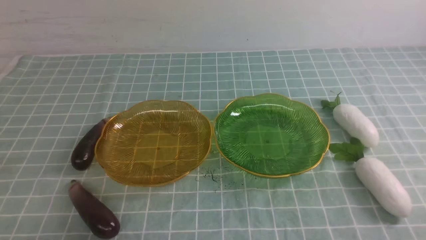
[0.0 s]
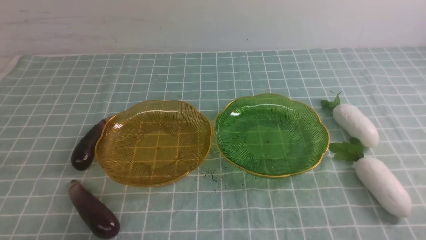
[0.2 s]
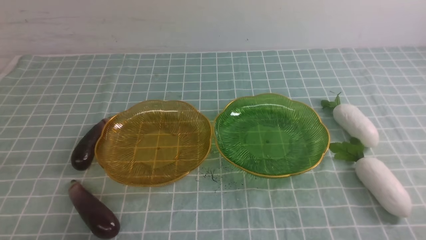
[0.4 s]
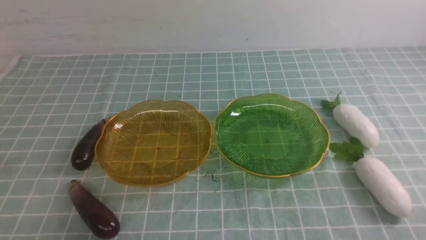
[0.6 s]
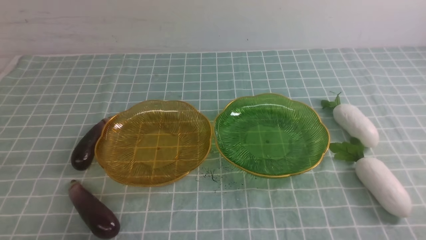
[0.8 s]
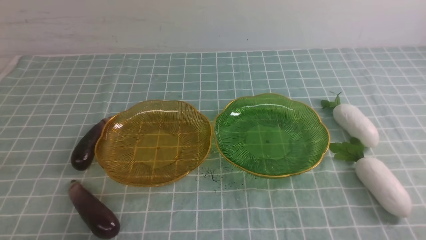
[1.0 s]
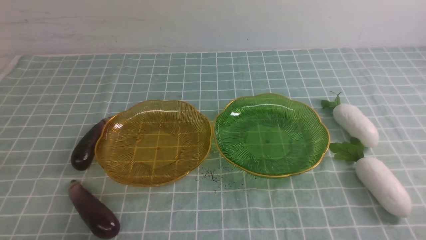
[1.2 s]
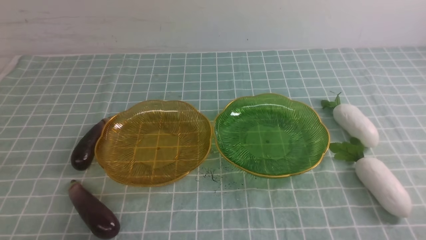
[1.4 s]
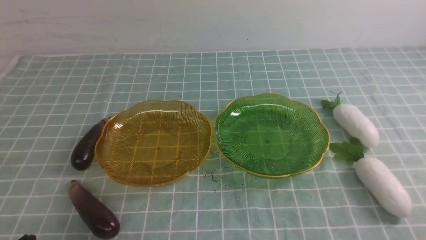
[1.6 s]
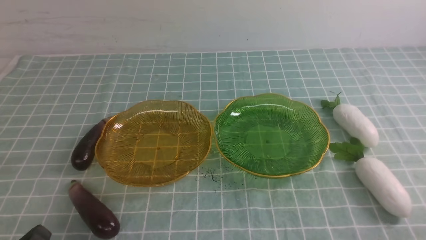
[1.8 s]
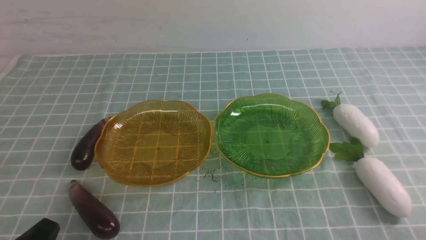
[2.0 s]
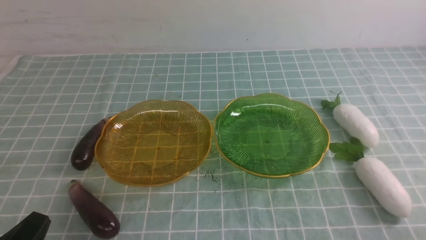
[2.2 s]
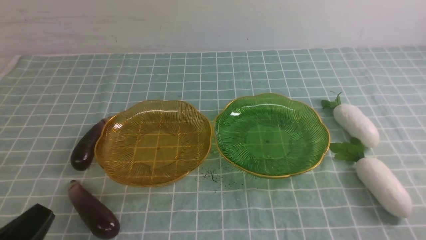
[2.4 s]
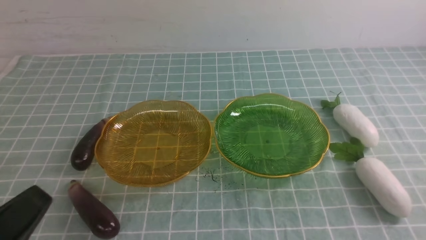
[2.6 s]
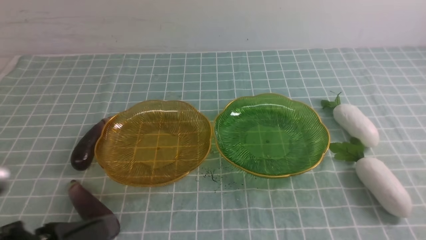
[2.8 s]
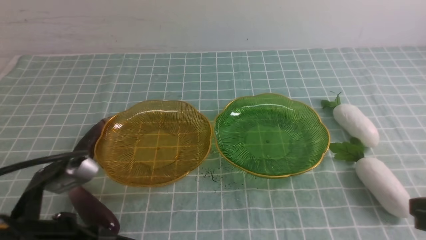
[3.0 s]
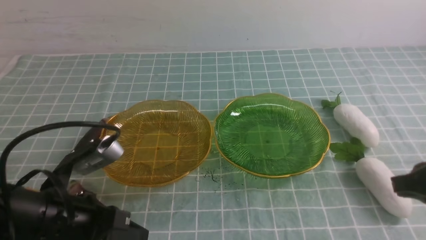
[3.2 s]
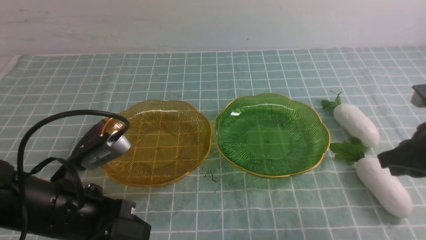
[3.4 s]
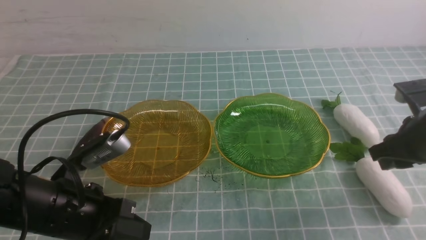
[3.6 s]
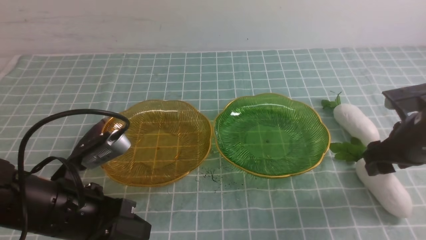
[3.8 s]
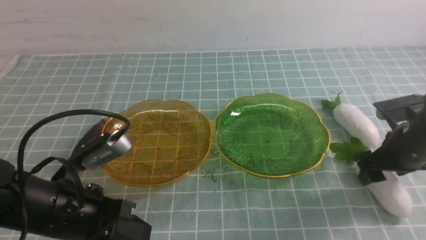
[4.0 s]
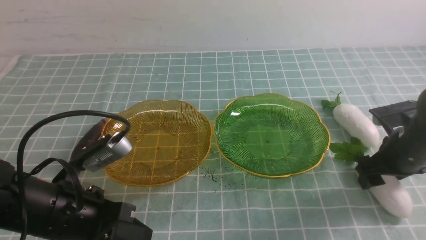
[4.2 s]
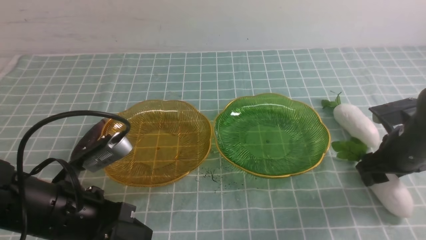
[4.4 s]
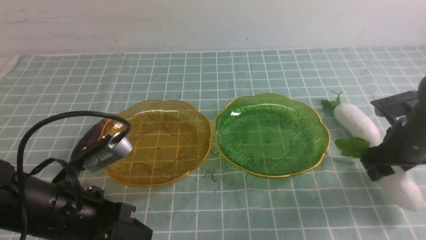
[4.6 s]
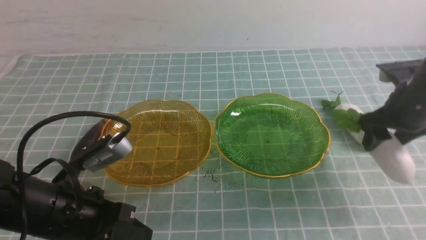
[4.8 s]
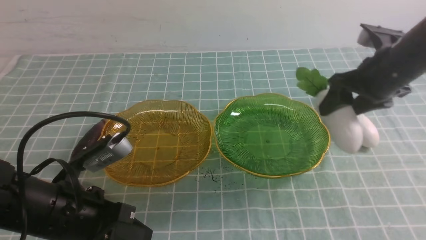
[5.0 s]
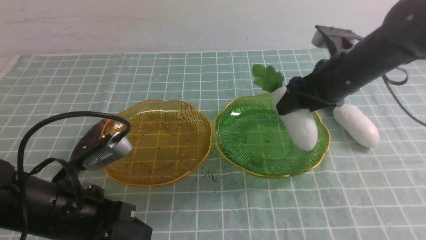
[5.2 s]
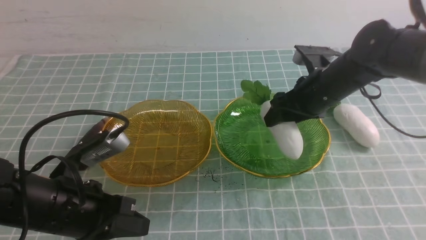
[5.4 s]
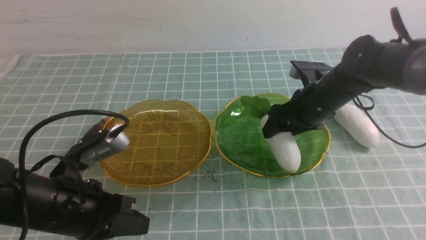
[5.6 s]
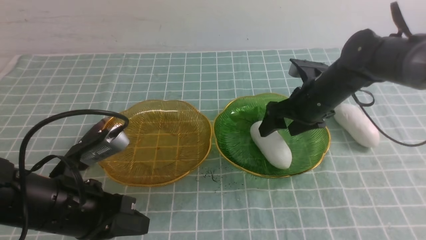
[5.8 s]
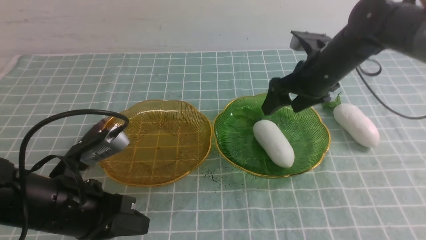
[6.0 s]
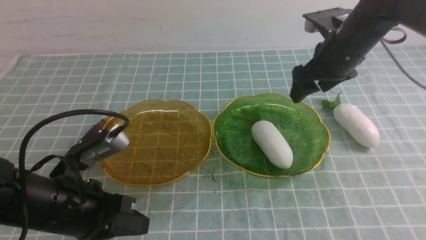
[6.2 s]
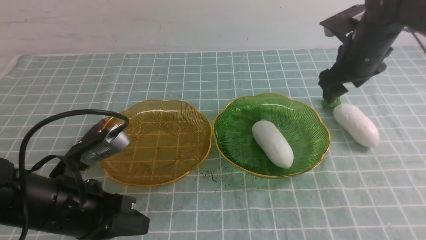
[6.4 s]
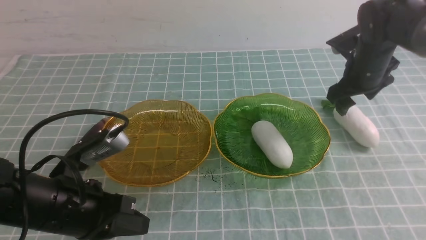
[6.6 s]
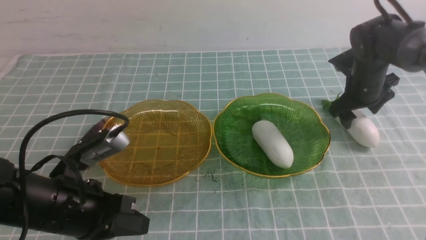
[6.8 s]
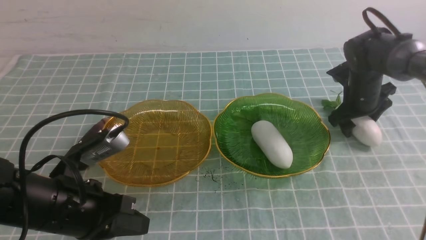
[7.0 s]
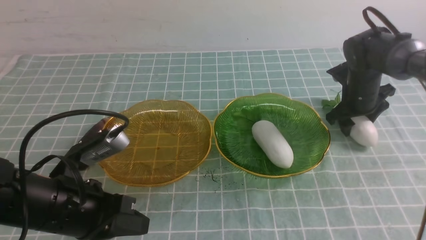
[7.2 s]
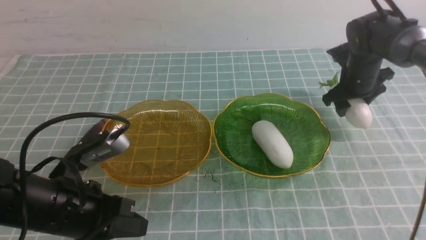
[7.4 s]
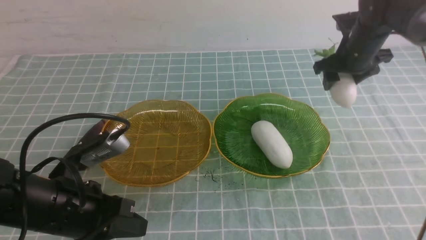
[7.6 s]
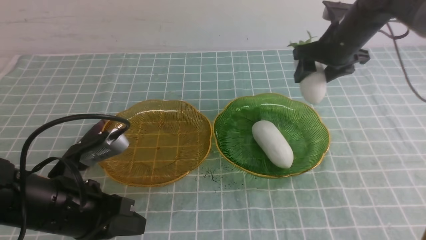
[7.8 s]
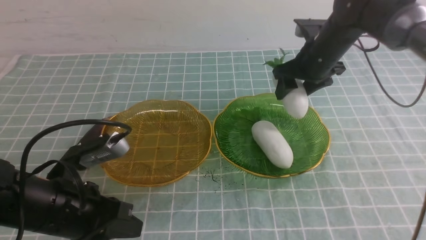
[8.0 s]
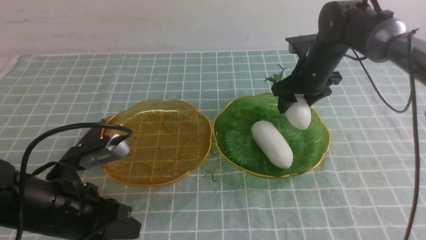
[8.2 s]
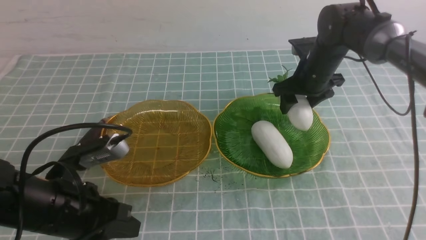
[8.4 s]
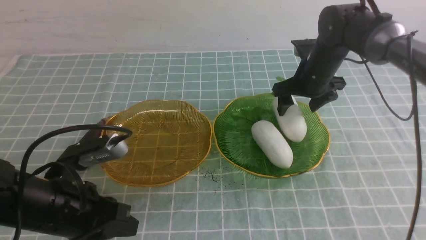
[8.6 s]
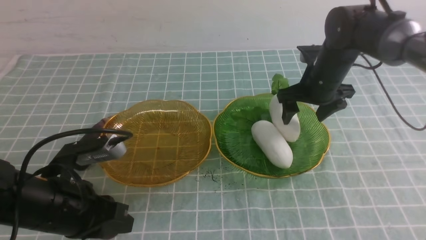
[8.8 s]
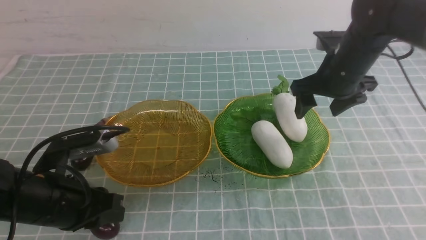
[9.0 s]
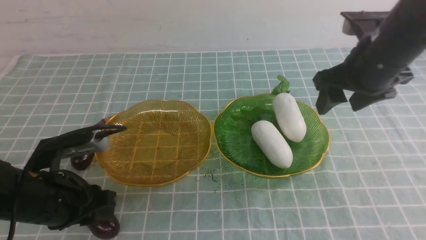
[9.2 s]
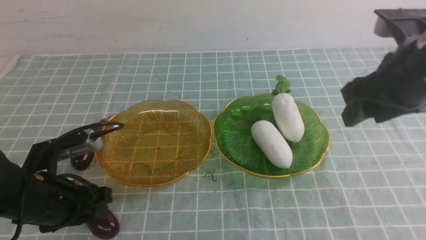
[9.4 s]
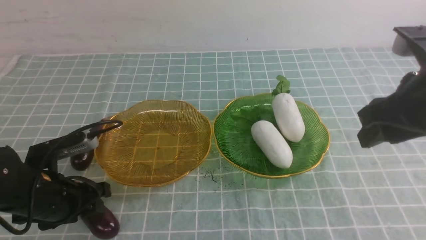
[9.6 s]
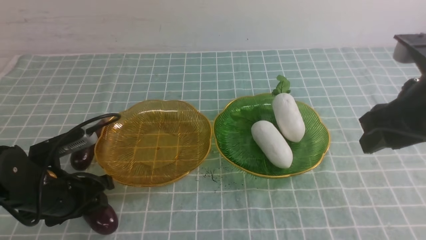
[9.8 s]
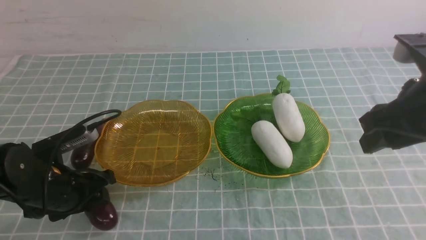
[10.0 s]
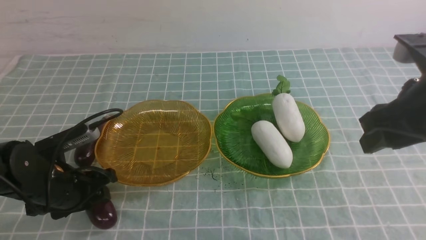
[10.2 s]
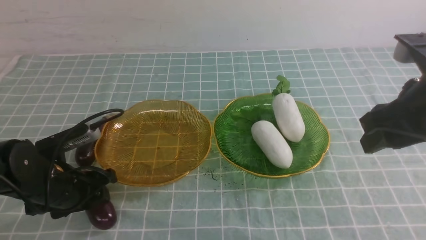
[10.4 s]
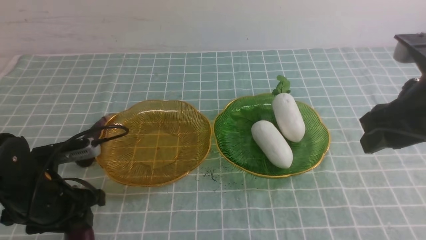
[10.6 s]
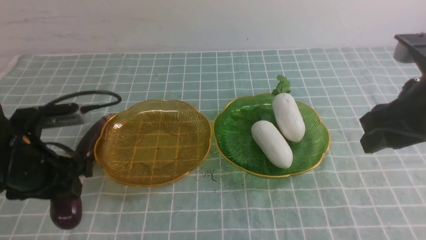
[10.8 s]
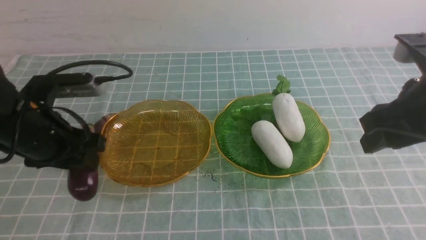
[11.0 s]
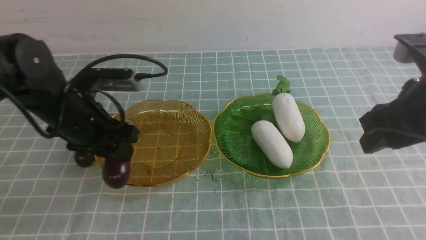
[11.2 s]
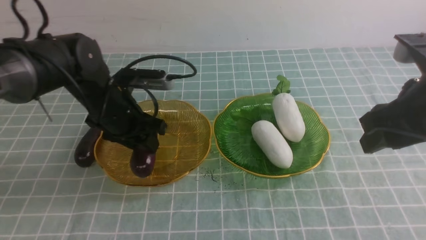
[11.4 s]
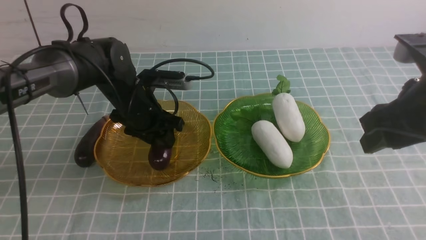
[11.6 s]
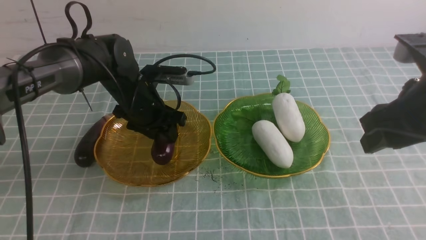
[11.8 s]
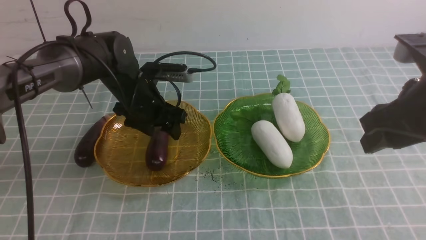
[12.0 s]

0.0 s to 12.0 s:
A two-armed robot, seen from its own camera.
Step, 0.0 to 8.6 s: use the right arm to grab a radish and put it into the right plate.
1.6 to 3.0 s: The right gripper goes approximately 10 cm upward and forward. Meanwhile the left gripper heads upward, forward and to the right, covering some 10 cm.
3.0 to 4.4 s: The left gripper travels forward by approximately 5 cm. Meanwhile the right gripper is displaced forward and downward by roughly 25 cm, and opens its fingers.
4.4 to 6.0 s: The right gripper is displaced to the left, forward and upward by approximately 15 cm.
6.0 to 7.6 s: The right gripper heads to the right and forward, covering roughly 10 cm, and reaches approximately 5 cm downward, then returns.
7.6 to 9.0 s: The right gripper shifts roughly 10 cm backward and to the left.
9.0 to 10.4 s: The right gripper shifts roughly 20 cm backward and upward, and closes up. The left gripper goes some 5 cm downward and forward, and opens its fingers.
10.4 to 12.0 s: The left gripper is displaced forward and to the right by approximately 20 cm.

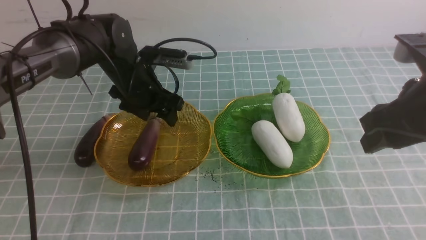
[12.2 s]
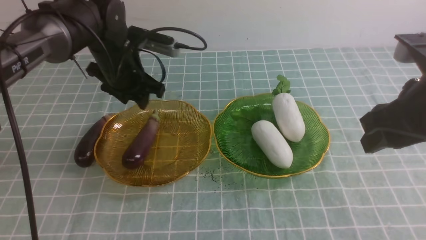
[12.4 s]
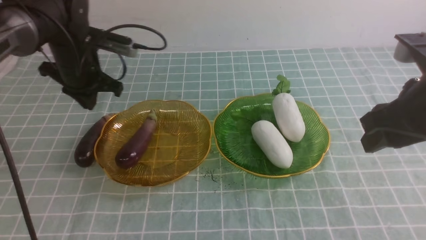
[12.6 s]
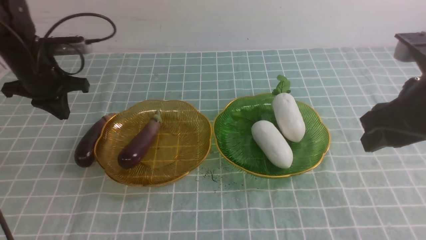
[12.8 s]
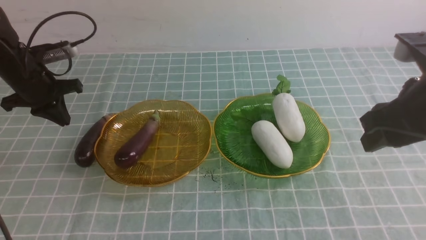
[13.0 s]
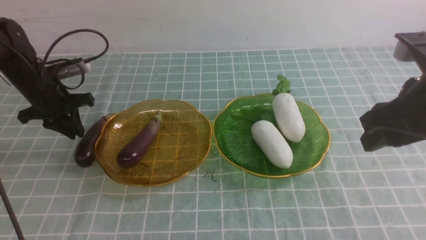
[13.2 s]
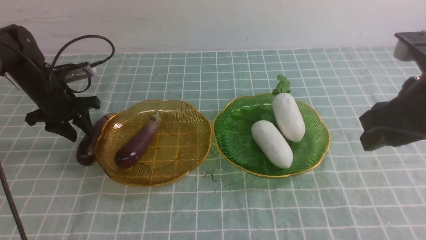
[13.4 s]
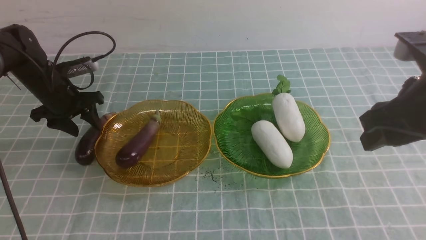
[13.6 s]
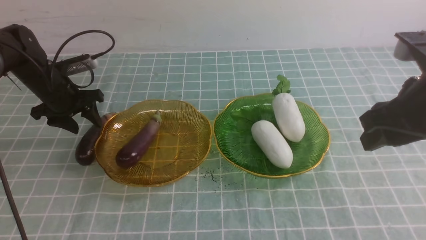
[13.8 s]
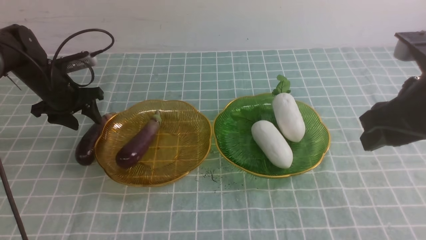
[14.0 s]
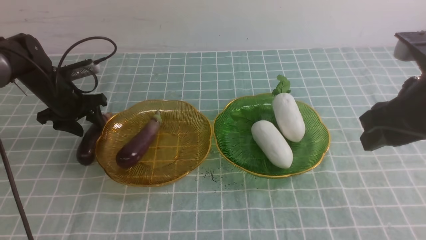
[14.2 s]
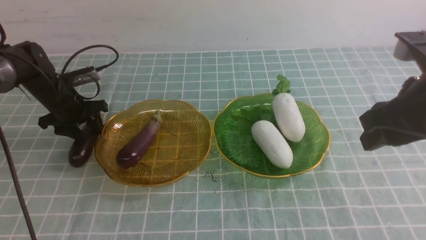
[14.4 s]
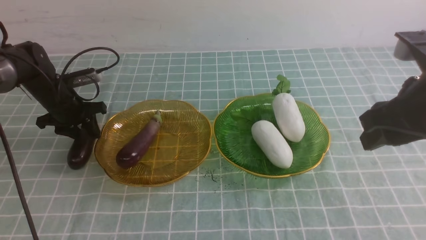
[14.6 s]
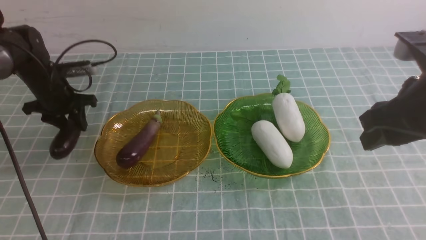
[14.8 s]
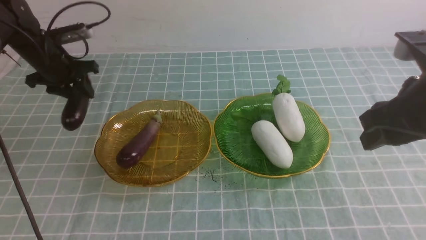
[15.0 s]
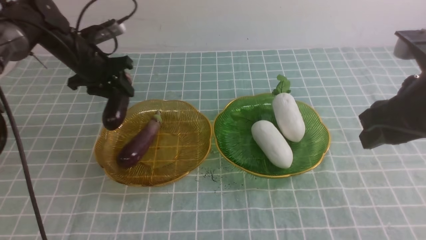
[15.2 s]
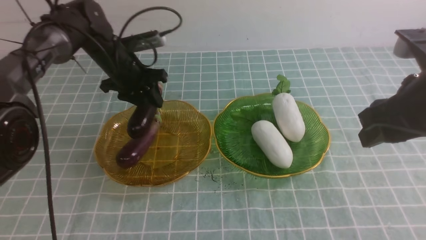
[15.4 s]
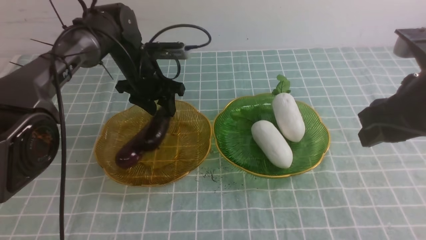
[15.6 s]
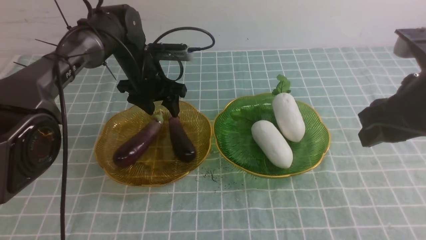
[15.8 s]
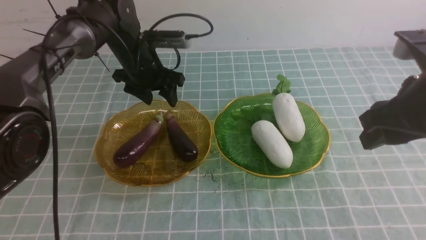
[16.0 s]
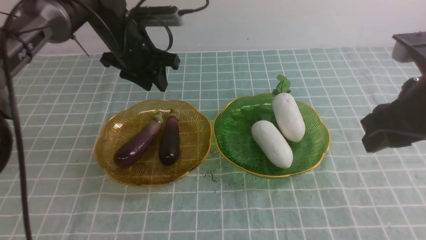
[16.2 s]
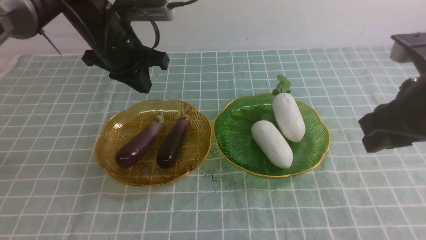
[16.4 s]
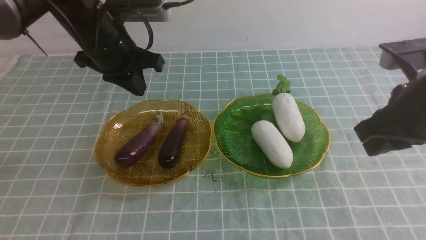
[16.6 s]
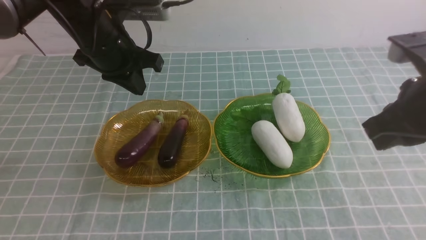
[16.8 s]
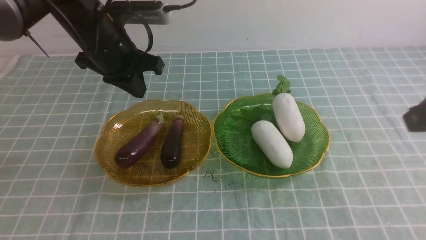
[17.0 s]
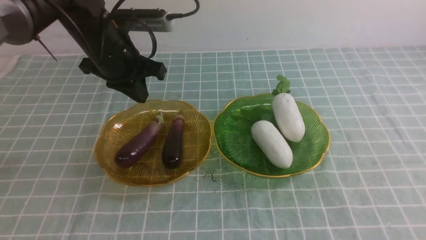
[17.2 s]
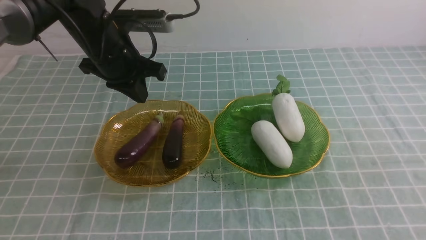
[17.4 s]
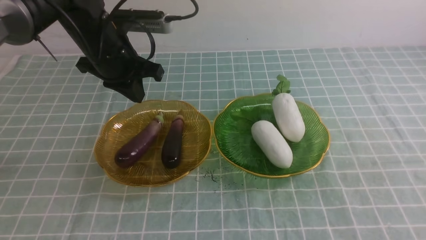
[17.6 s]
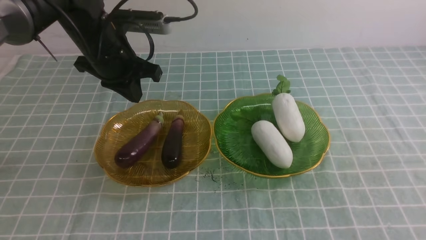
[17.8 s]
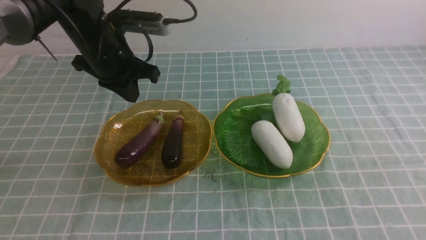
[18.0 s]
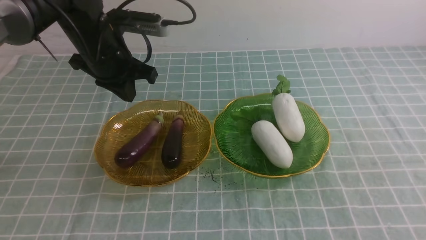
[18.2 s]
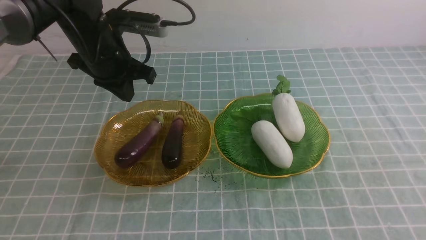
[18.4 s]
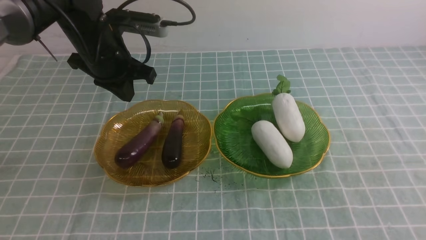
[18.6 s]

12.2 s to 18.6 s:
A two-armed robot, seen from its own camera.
Step, 12.2 to 15.6 s: use the left arm to grab an eggplant and put it into the left plate.
12.2 to 13.8 s: The left gripper moves to the left, some 15 cm, and closes, then reopens.
13.8 to 15.4 s: The left gripper shifts approximately 10 cm to the right.
15.4 to 17.0 s: The right gripper moves about 5 cm, and closes its fingers. The left gripper goes about 15 cm upward and backward, and closes up.
17.0 to 18.6 s: The right gripper travels backward and downward by approximately 10 cm.
